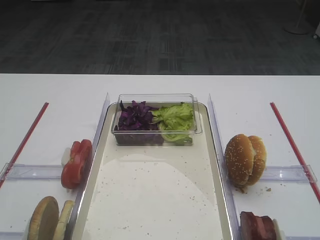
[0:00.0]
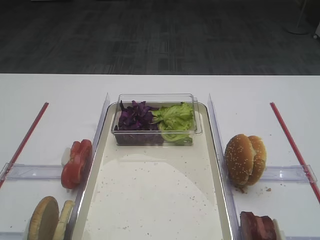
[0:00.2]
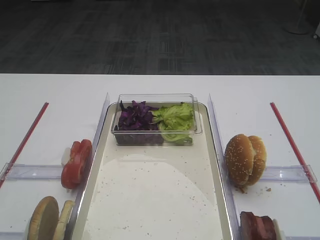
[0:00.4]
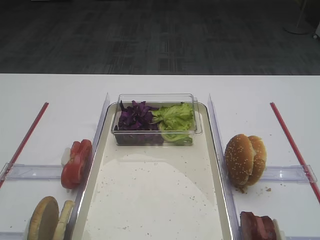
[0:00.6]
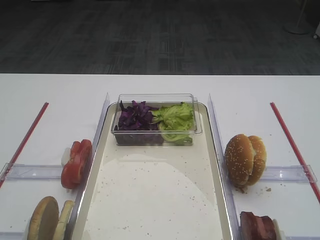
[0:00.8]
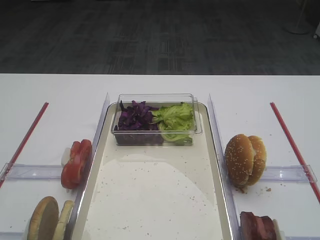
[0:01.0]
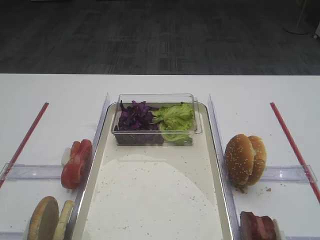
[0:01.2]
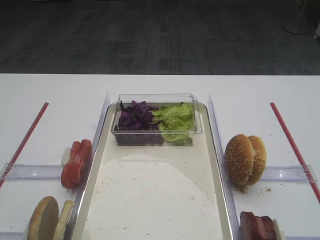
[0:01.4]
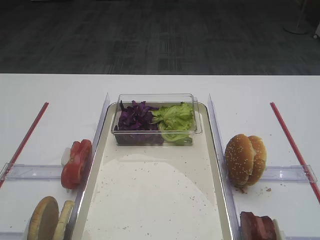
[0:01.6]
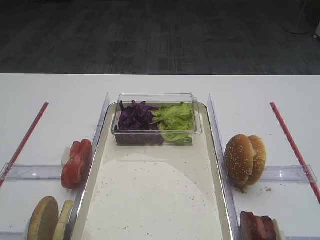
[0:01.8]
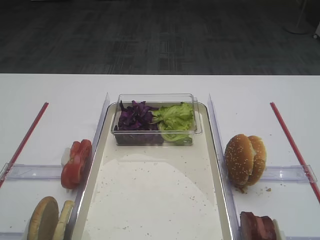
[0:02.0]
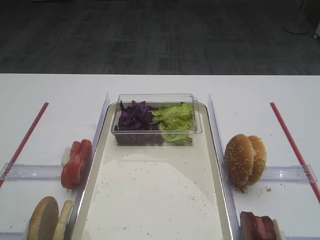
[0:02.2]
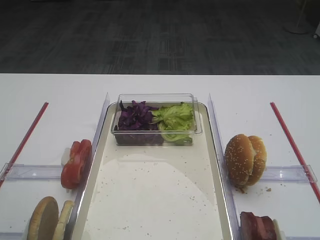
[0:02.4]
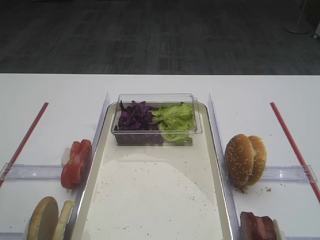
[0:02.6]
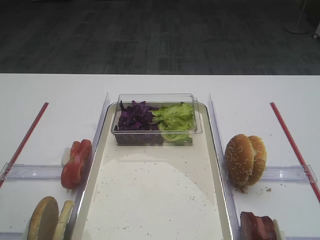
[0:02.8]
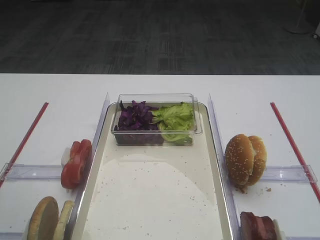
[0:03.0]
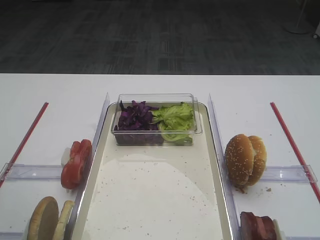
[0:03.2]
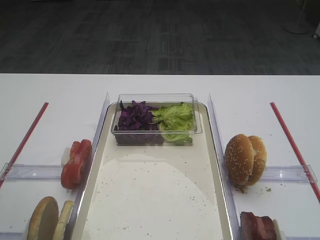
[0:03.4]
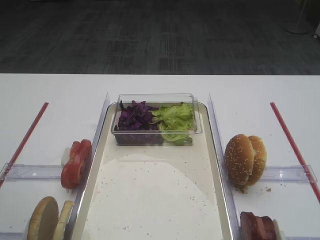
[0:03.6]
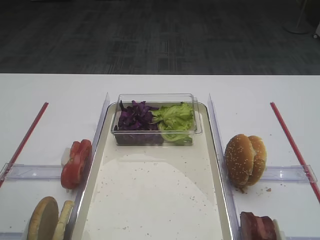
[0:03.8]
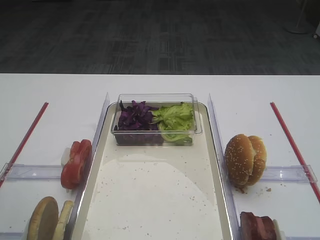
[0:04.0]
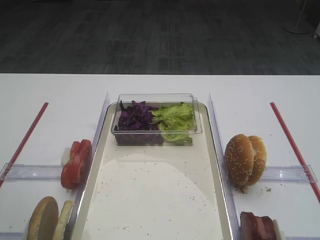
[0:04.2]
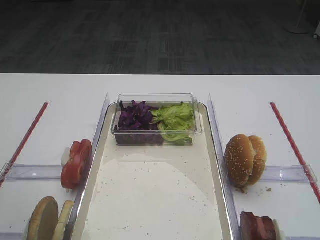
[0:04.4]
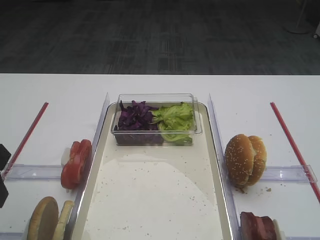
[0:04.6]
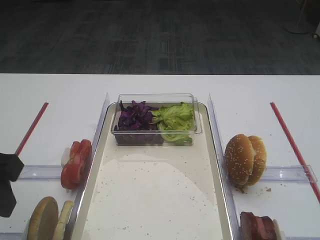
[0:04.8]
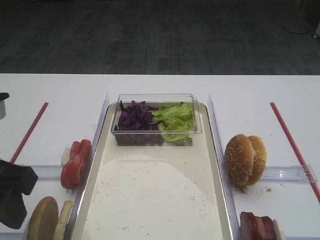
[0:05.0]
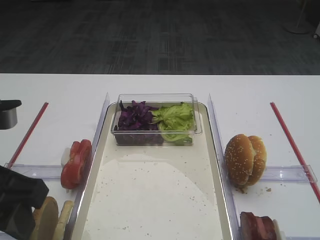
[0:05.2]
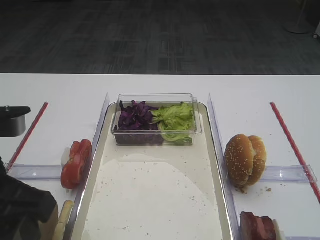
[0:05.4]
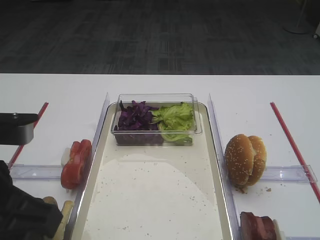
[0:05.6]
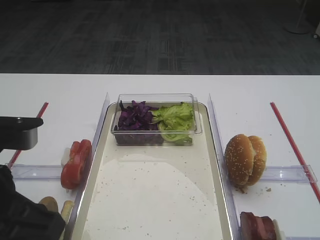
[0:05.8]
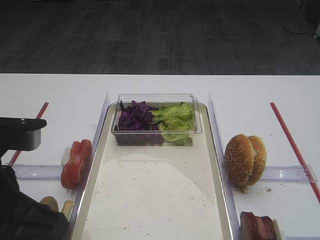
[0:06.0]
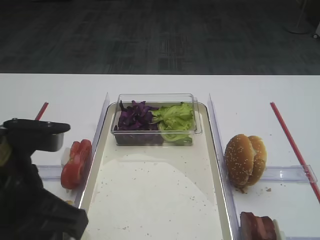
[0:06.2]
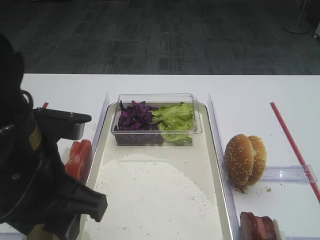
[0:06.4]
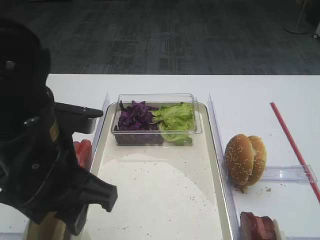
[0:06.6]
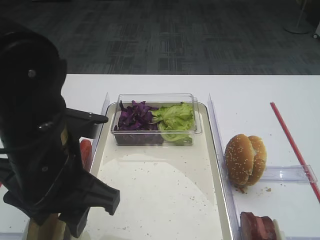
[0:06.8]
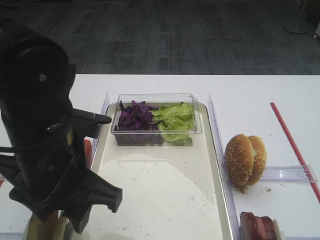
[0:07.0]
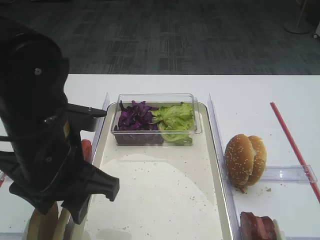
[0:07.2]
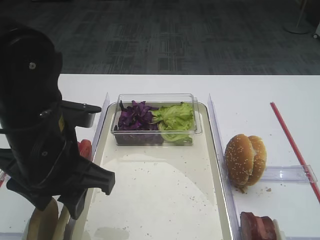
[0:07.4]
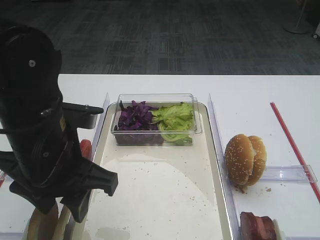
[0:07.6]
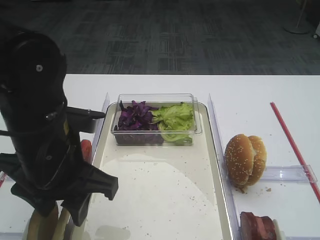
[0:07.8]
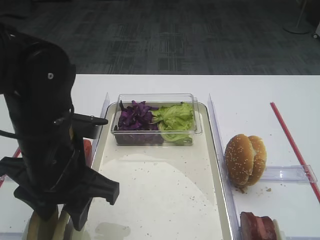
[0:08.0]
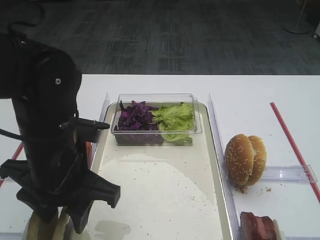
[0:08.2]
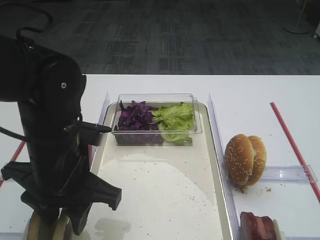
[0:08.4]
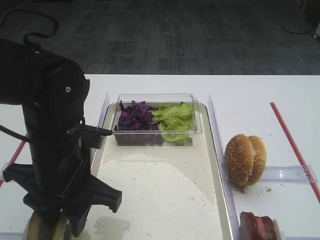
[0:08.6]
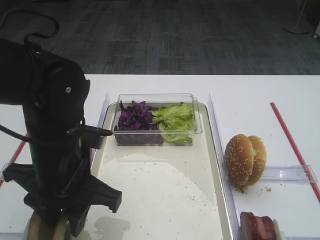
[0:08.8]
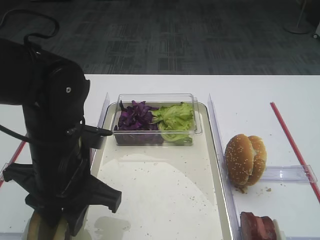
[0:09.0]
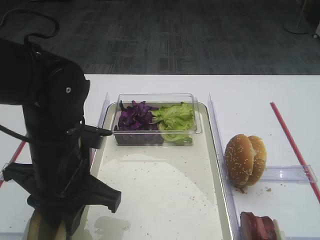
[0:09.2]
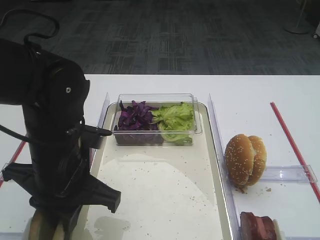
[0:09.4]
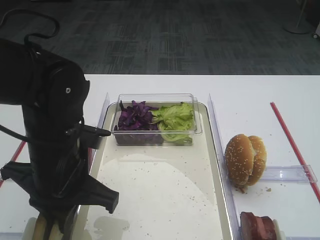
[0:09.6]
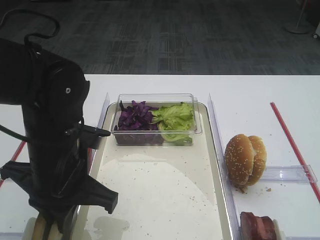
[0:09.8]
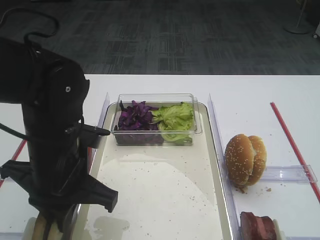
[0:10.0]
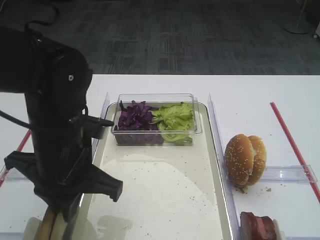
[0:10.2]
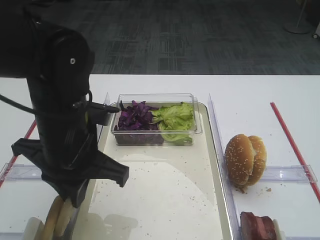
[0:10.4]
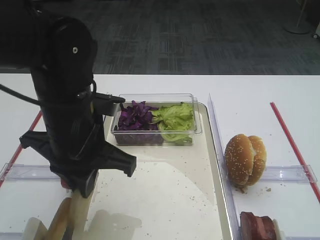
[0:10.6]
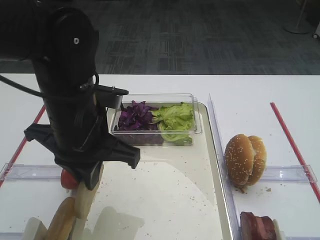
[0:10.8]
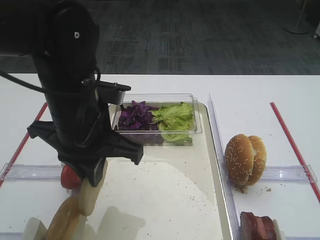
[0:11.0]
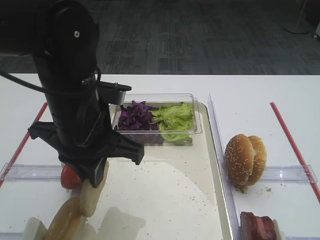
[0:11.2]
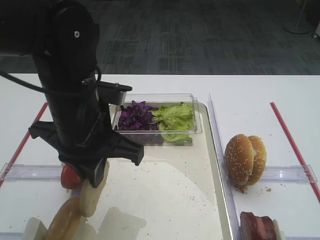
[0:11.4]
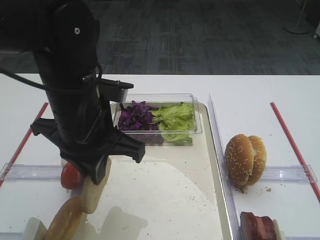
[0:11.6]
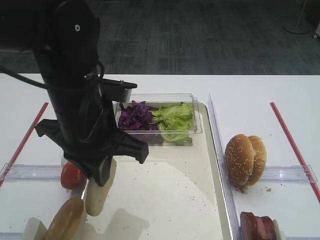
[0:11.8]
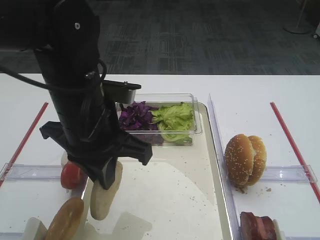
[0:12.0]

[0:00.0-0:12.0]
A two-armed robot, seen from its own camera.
Step, 0:00.0 to 0:10.8: Pick up the bread slice with the left gripper.
0:04.4 to 0:06.0: The left gripper shifts approximately 10 cm to the right.
0:06.0 to 0:07.6: The left gripper shifts roughly 10 cm forward.
0:07.6 to 0:09.0: The grippers move only a little.
0:09.0 to 0:10.4: The left gripper closes up.
0:10.4 to 0:12.0: There are only small adjustments of the grippers.

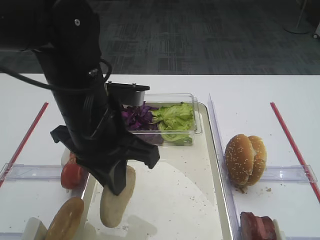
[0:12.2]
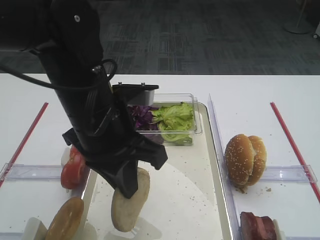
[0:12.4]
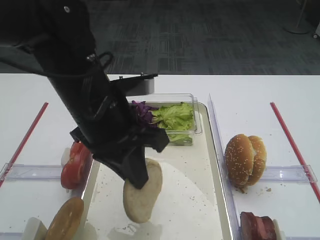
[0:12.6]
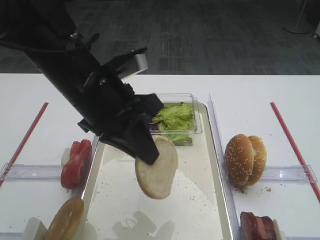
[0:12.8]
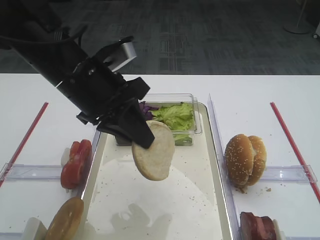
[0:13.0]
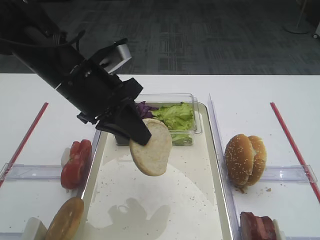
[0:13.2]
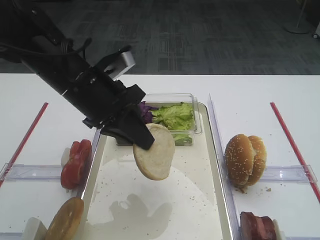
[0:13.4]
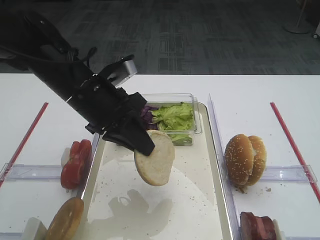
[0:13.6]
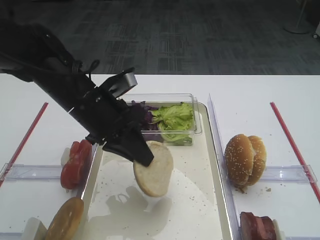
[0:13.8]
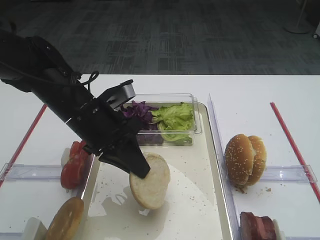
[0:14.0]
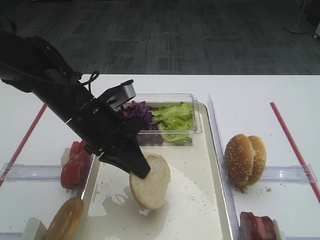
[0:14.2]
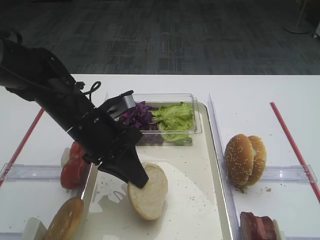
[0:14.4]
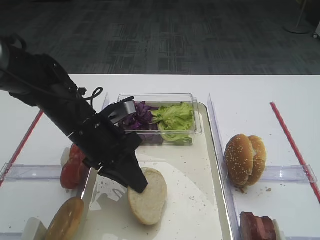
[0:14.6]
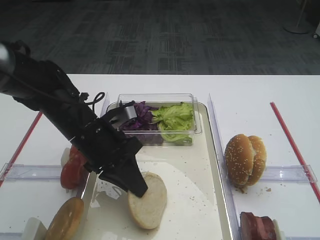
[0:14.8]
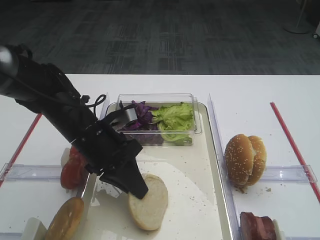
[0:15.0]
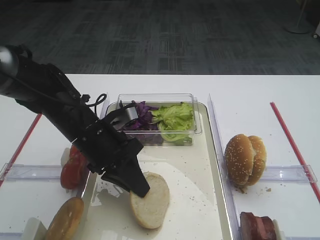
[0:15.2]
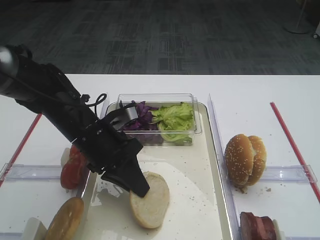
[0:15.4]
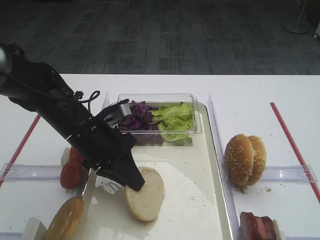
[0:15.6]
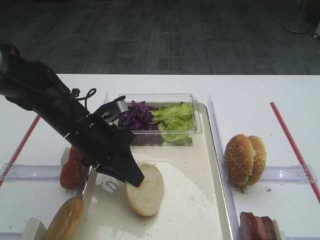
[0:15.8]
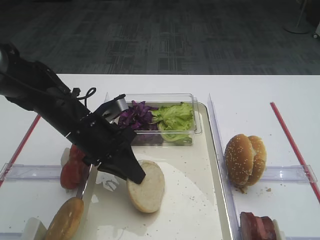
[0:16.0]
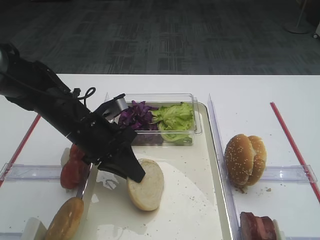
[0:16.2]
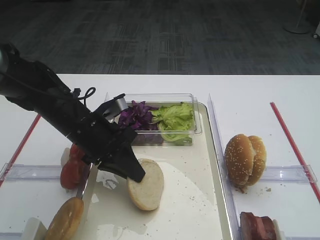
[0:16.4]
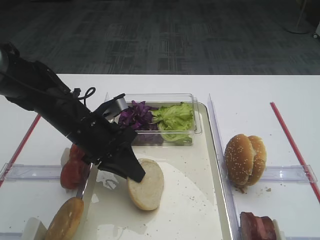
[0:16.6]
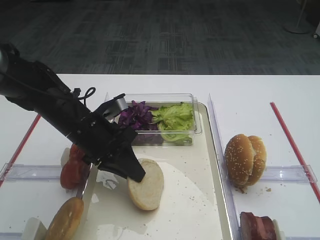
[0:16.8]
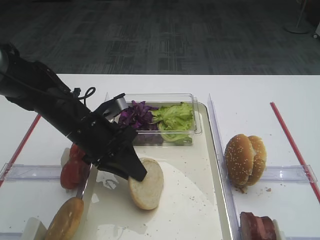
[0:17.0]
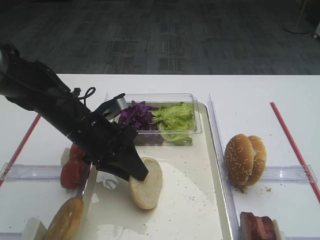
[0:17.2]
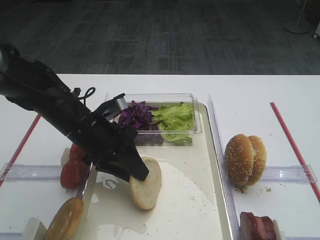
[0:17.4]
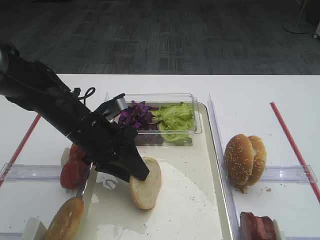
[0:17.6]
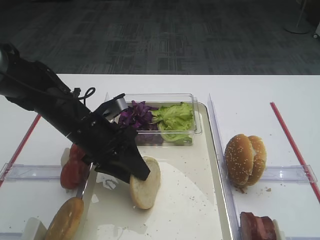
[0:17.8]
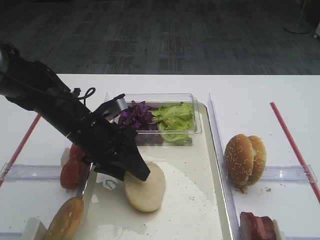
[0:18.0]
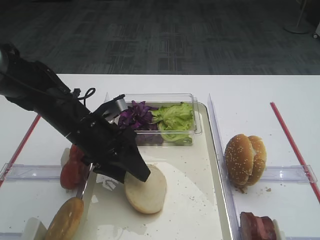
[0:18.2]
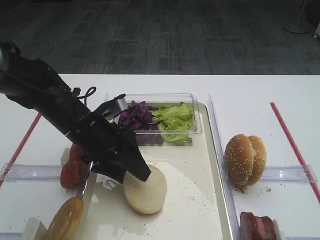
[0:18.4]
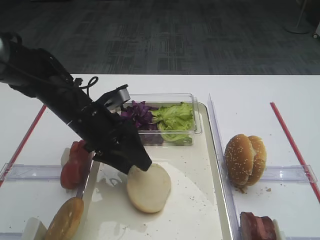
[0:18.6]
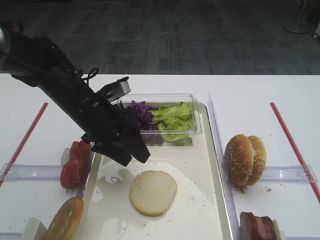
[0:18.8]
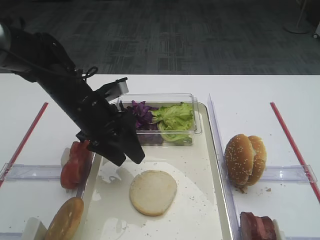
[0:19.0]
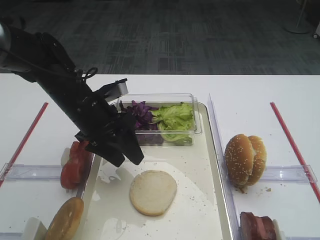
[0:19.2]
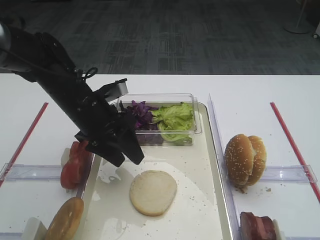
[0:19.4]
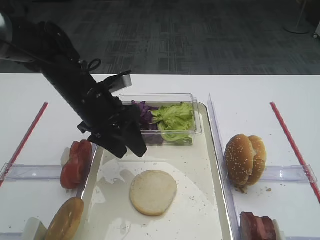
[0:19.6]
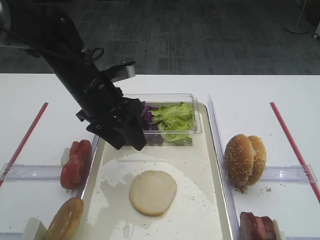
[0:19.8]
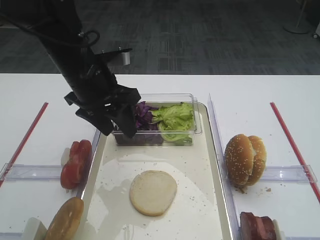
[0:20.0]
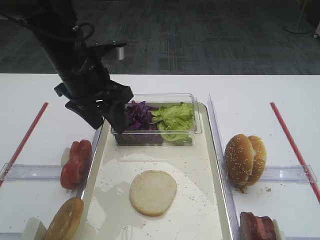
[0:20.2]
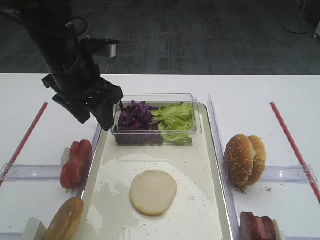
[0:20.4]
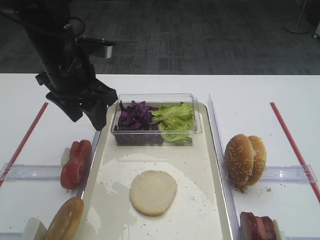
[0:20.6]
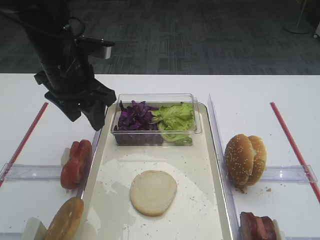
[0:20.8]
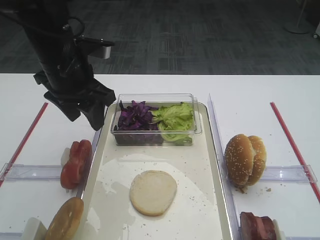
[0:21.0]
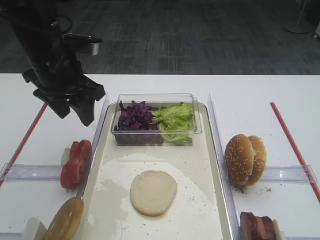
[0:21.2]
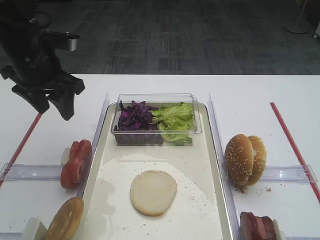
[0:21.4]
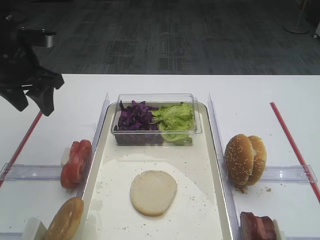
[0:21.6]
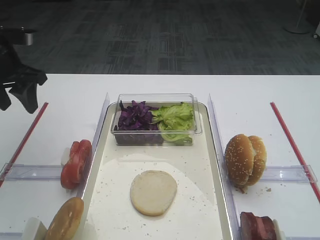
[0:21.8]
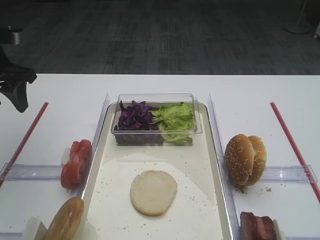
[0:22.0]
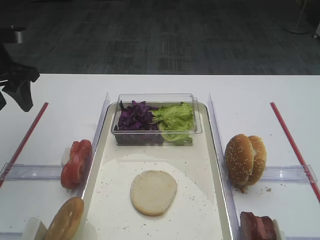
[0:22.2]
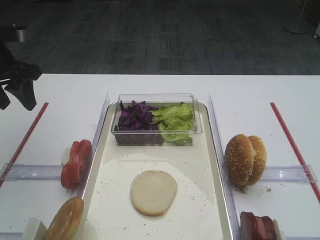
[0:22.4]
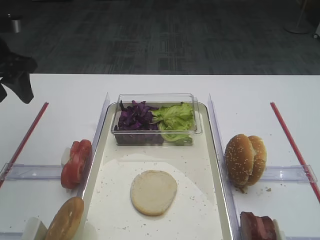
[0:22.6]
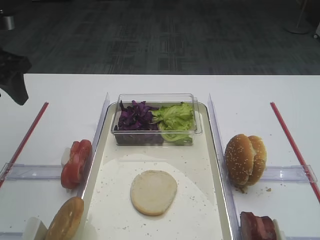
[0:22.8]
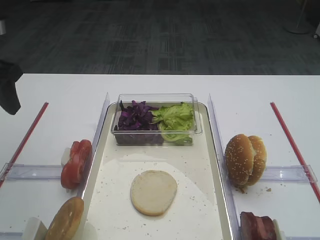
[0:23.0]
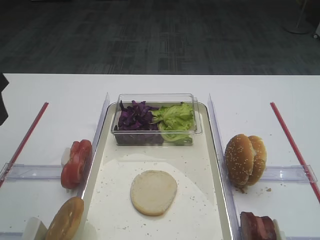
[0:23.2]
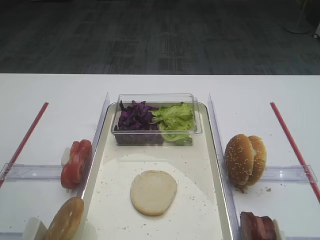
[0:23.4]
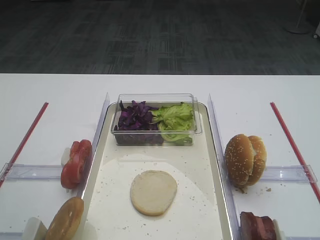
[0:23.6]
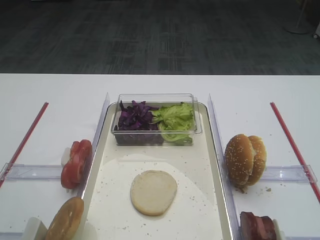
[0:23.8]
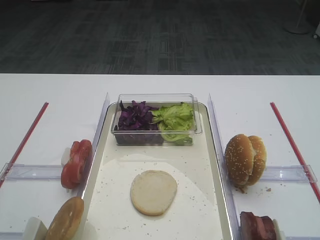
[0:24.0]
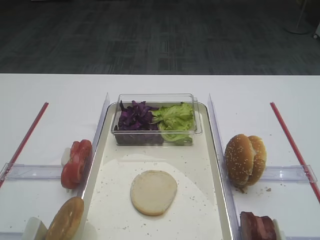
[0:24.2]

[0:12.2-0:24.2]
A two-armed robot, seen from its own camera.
Step, 0:12.2 to 0:19.0: Place the bread slice on the tray with the left gripper.
0:12.2 to 0:13.8: The left gripper moves forward, approximately 5 cm.
0:13.8 to 0:15.2: The left gripper is displaced downward by about 5 cm.
0:15.2 to 0:16.6: The grippers move only a little.
0:16.6 to 0:18.2: The left gripper opens its fingers.
0:18.2 to 0:19.8: The left gripper is displaced upward by about 5 cm.
0:19.8 to 0:21.2: The left gripper goes about 5 cm to the left.
0:21.2 to 0:22.6: The left gripper goes roughly 10 cm to the left.
0:22.6 to 0:24.2: The left gripper travels backward by some 30 cm.
